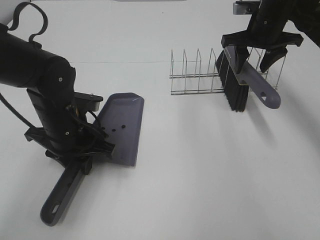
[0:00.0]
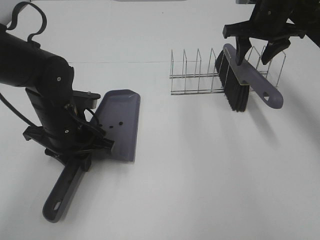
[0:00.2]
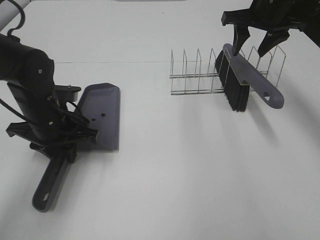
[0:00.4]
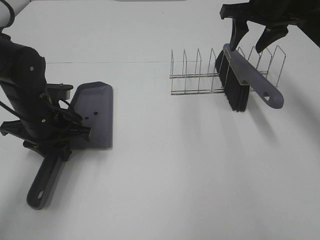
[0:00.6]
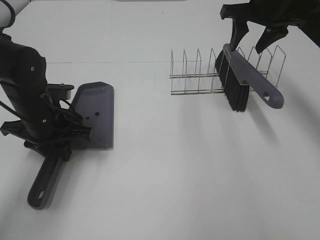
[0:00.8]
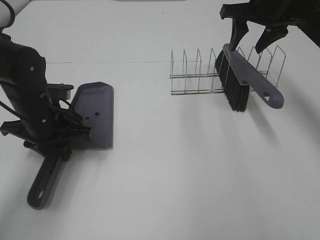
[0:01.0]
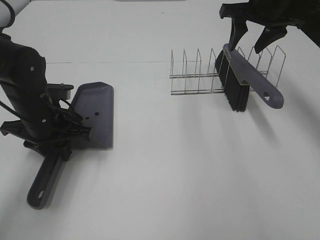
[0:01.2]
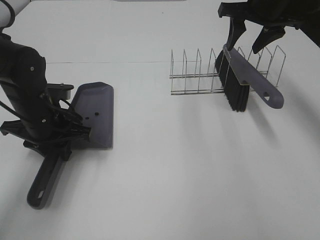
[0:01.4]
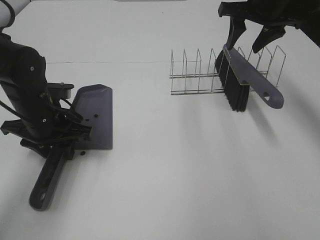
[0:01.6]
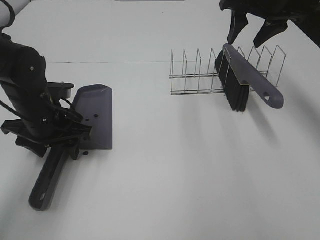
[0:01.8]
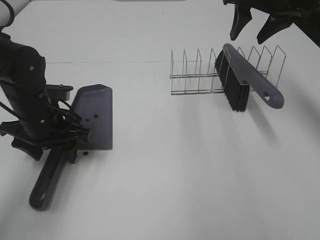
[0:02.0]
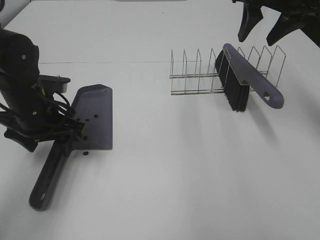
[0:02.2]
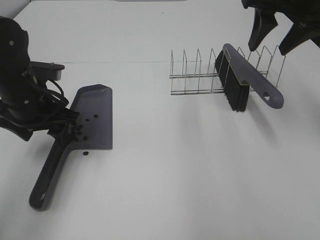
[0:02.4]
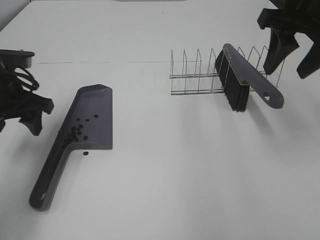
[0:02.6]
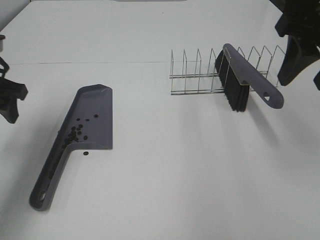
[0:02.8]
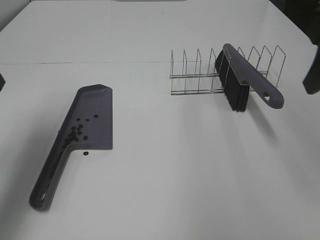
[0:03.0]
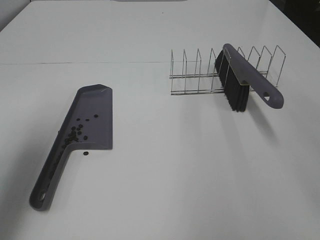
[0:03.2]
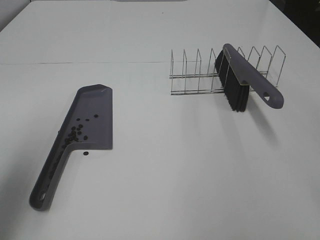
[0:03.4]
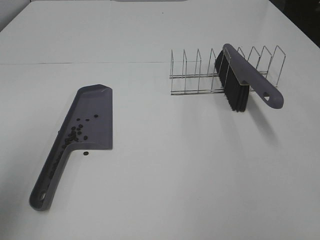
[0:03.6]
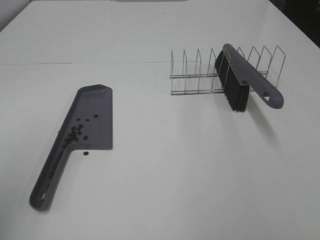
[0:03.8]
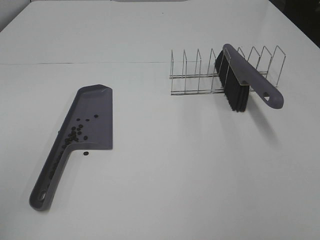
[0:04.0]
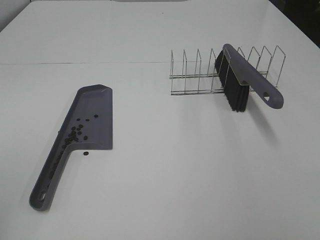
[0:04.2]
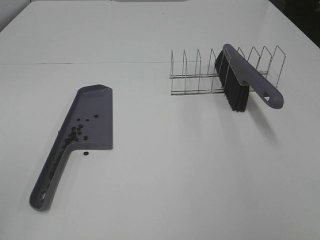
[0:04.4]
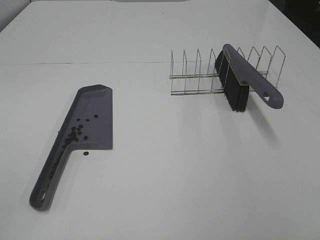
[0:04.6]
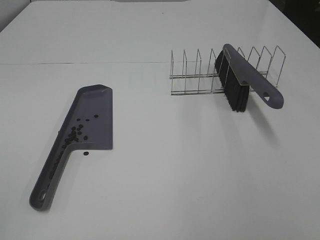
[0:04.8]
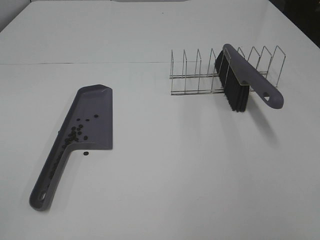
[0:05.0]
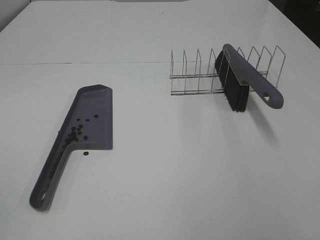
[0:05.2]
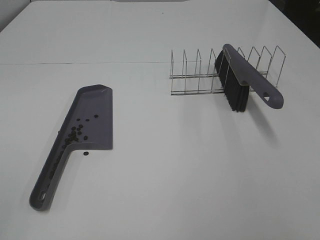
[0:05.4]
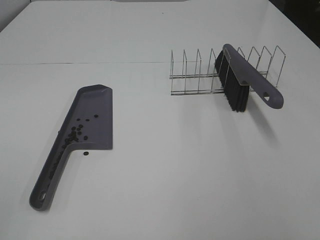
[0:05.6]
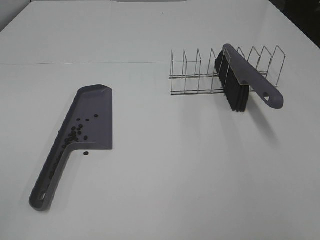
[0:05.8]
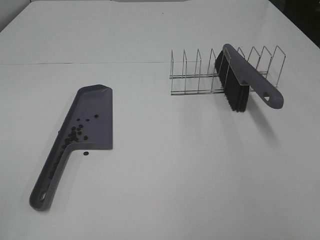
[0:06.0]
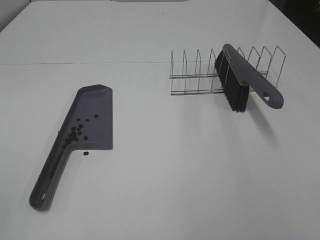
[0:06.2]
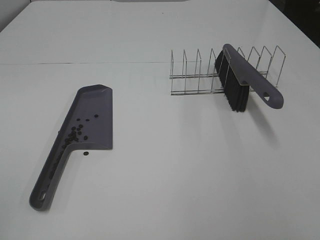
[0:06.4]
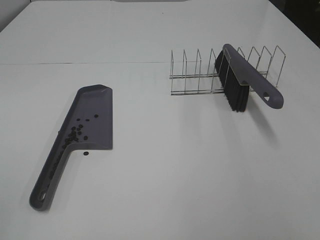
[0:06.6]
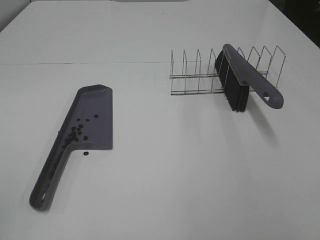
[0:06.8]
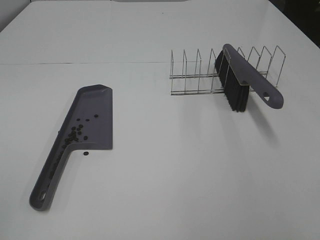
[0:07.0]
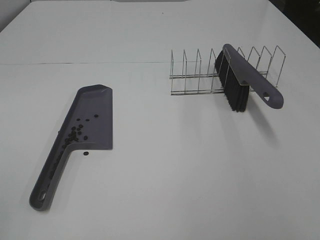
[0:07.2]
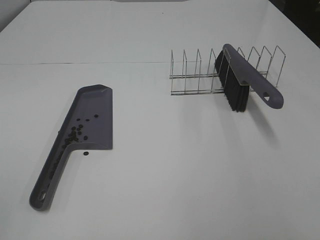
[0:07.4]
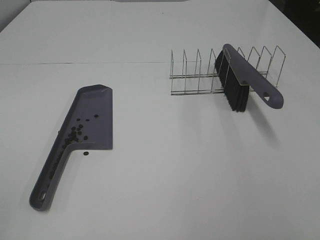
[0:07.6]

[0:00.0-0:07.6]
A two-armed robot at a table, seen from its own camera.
Task of the whole recording: Sweep Coffee Bean.
Step, 0:00.0 to 0:02.2: Left hand:place the dustpan on the table.
0:00.0 to 0:01.6: The left gripper moves about 5 cm, while the right gripper heads upward, covering roughly 5 cm.
0:01.6 to 0:03.0: The left gripper is displaced upward and to the left by approximately 15 cm. The right gripper moves backward, about 25 cm.
0:03.0 to 0:04.6: The grippers both shift backward by roughly 30 cm.
0:06.0 to 0:07.6: The two grippers keep their place.

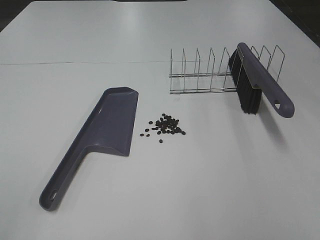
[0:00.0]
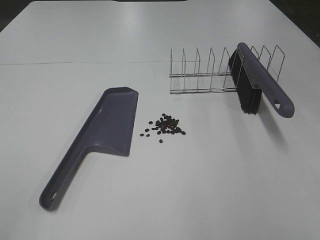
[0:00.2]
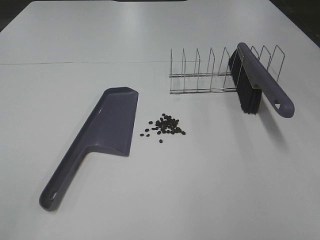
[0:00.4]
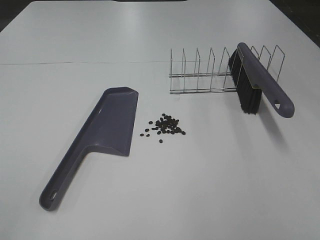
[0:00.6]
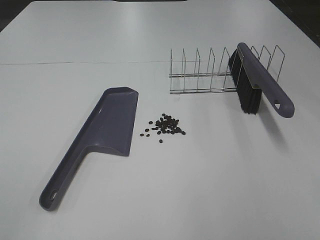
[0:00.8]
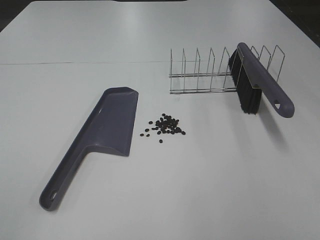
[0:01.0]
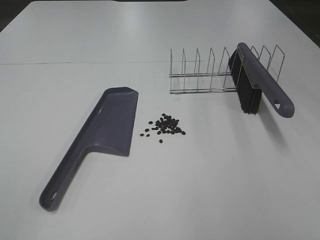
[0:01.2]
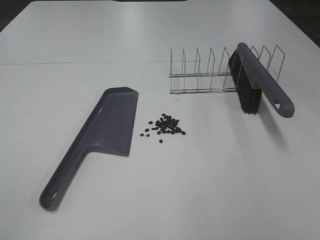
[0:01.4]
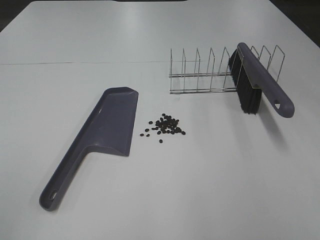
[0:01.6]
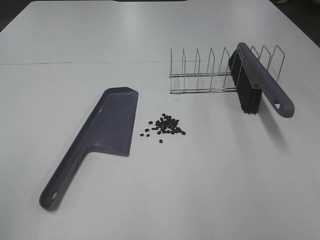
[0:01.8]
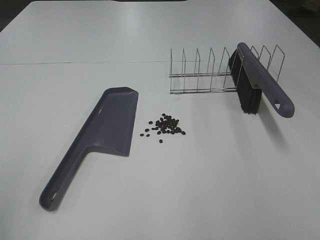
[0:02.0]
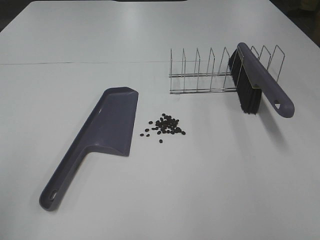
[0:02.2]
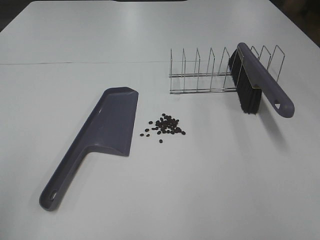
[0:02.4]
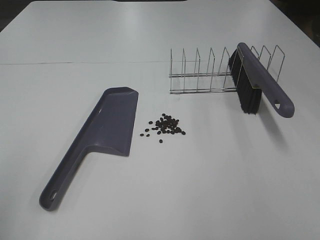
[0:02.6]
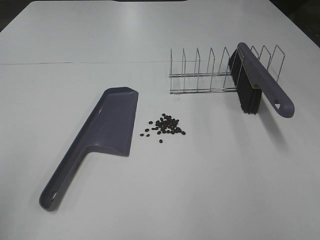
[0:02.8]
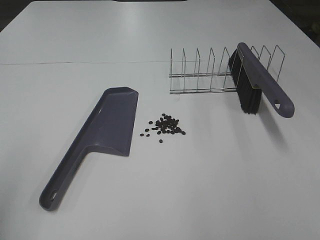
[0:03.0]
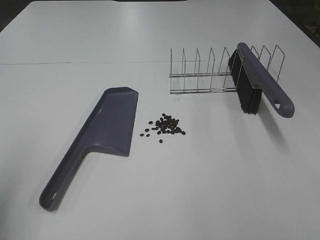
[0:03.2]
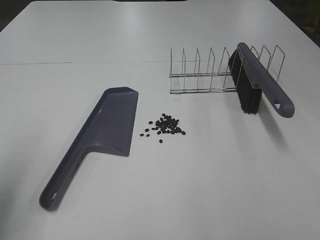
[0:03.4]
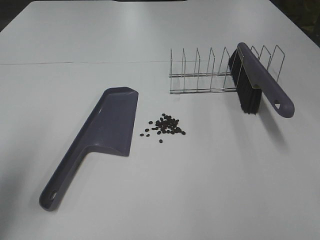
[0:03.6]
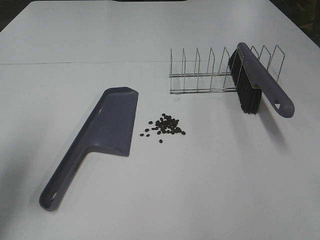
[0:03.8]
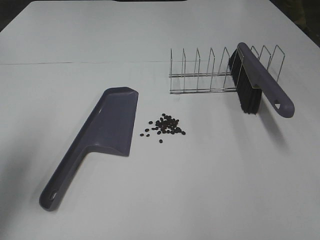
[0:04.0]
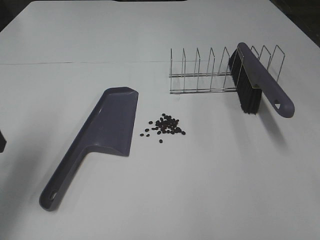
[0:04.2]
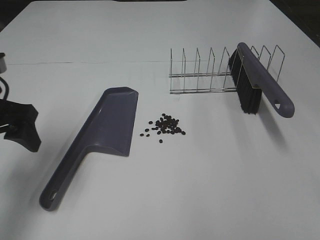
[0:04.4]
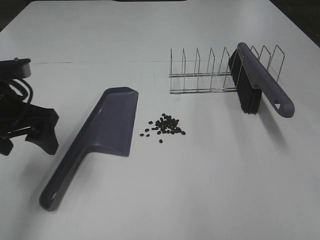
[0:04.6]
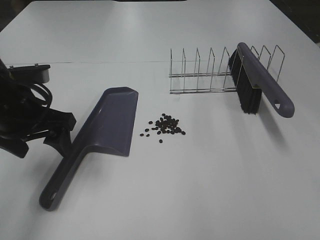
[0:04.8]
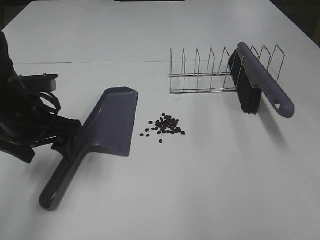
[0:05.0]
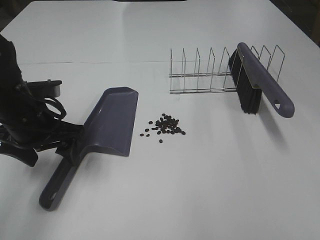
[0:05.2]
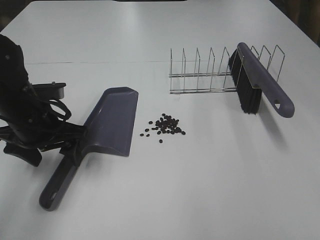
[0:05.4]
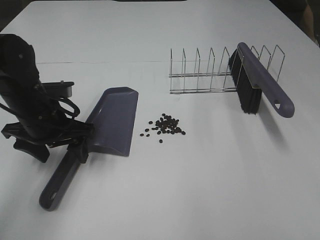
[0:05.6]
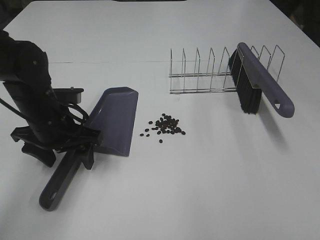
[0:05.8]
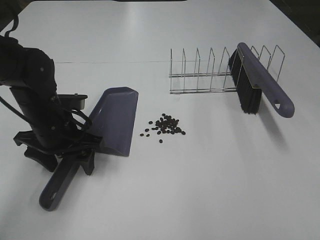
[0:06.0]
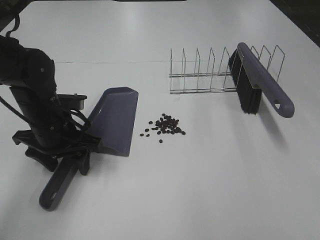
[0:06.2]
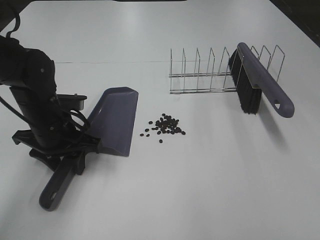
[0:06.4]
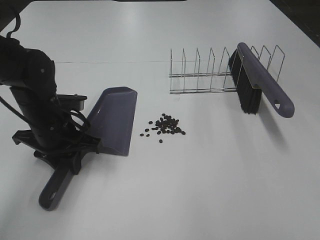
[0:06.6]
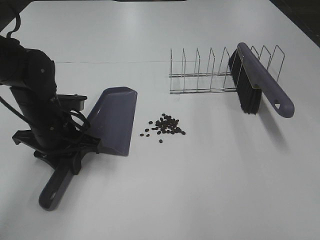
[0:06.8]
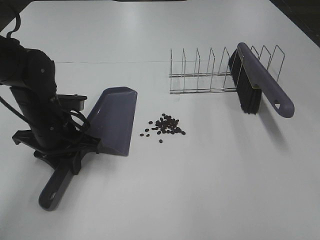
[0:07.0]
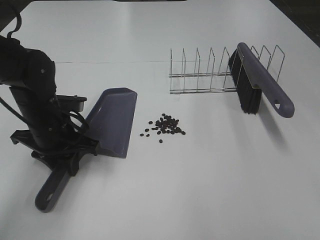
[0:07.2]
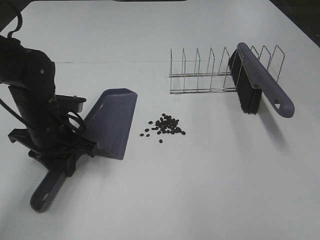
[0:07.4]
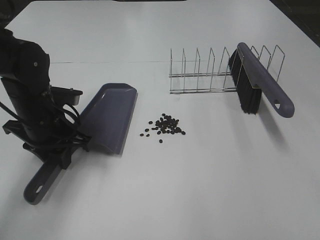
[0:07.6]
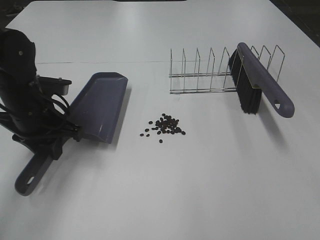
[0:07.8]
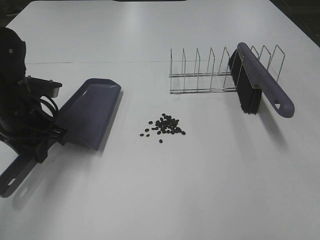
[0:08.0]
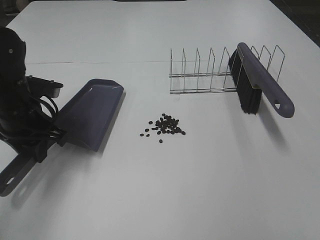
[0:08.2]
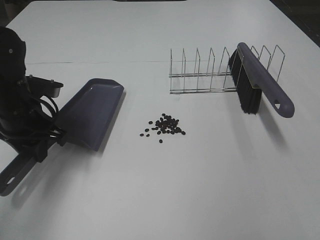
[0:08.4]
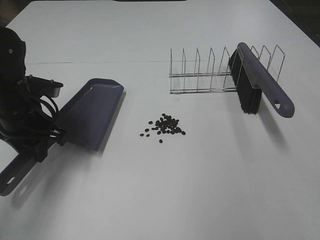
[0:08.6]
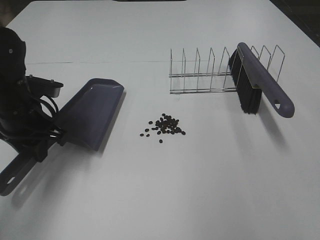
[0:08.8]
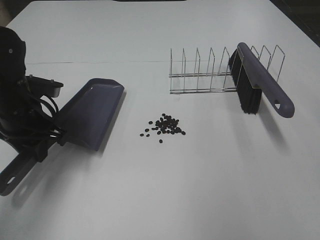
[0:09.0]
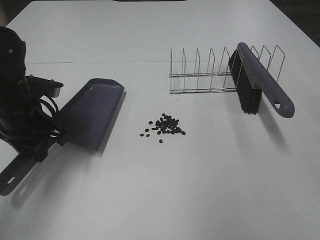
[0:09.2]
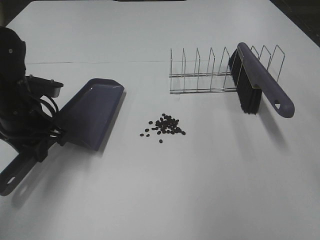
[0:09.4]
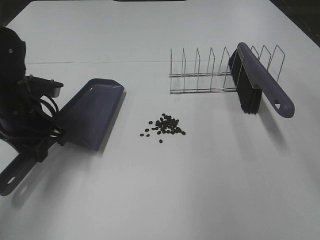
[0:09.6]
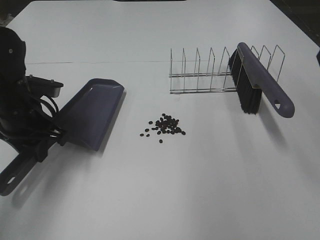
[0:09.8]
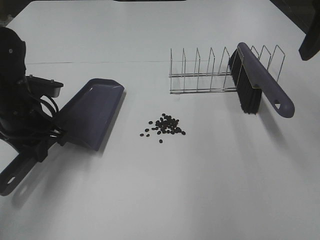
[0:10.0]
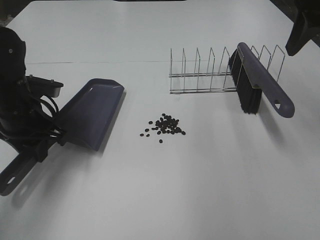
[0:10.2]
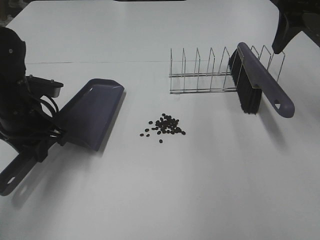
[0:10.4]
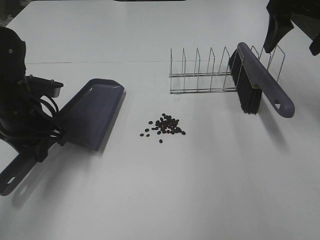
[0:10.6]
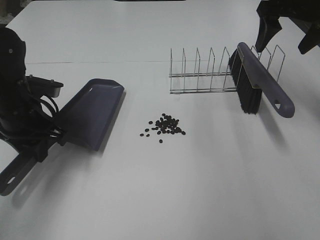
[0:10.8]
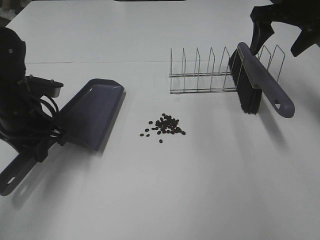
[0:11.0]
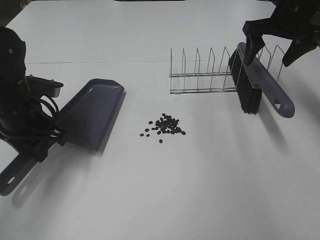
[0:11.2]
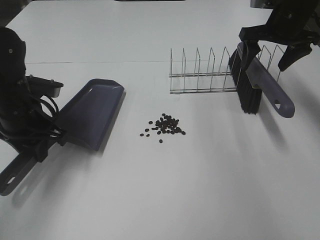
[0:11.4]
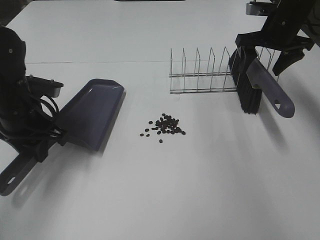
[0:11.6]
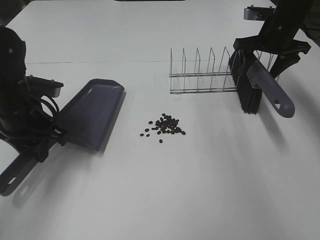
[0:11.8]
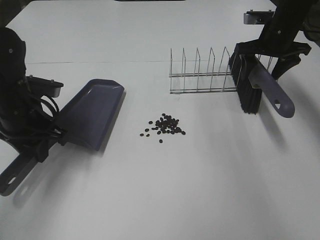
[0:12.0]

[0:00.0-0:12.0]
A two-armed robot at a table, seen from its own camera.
Task of the whole recording: Sweep Coffee Bean.
Step, 0:00.0 to 0:06.6: Left hand: grab the dustpan.
0:03.0 to 0:04.4: The left gripper travels forward and to the right by about 15 cm.
0:04.4 to 0:06.0: The left gripper travels downward, to the right and forward by about 15 cm.
0:06.0 to 0:07.6: The left gripper closes its fingers.
0:07.6 to 0:09.0: The right gripper is displaced forward and upward by about 15 cm.
0:09.0 to 0:10.4: The right gripper is displaced forward by approximately 25 cm.
0:10.4 to 0:12.0: The right gripper shifts roughly 20 cm downward and forward.

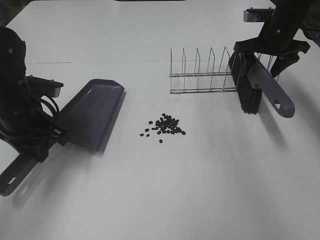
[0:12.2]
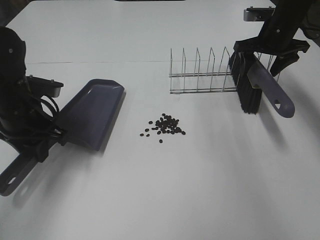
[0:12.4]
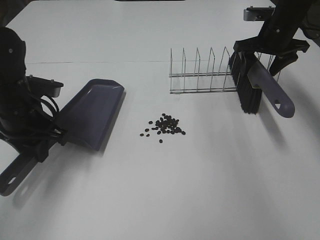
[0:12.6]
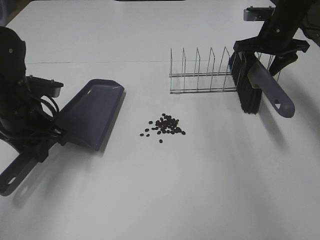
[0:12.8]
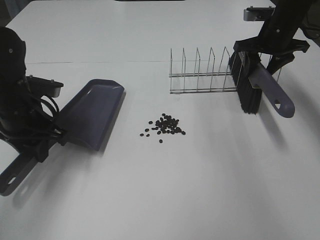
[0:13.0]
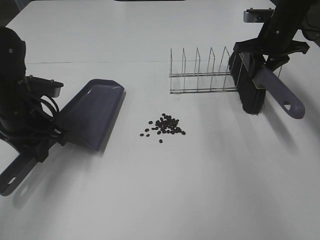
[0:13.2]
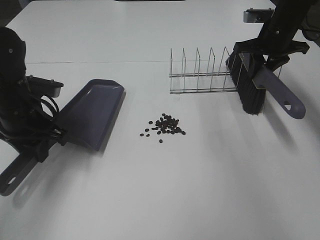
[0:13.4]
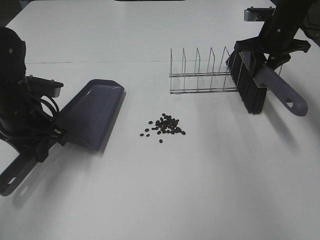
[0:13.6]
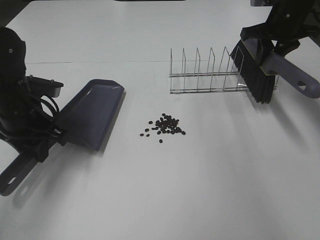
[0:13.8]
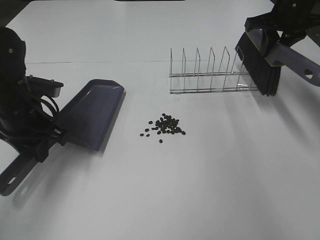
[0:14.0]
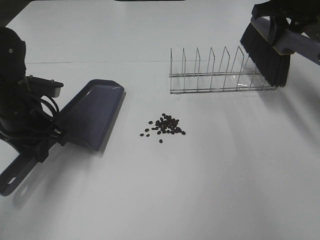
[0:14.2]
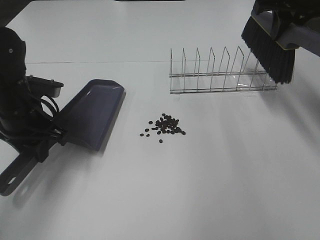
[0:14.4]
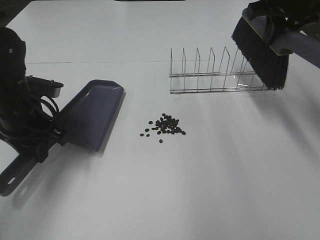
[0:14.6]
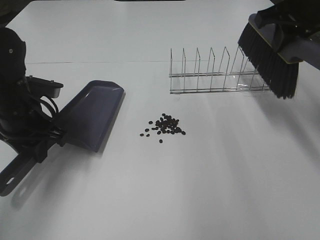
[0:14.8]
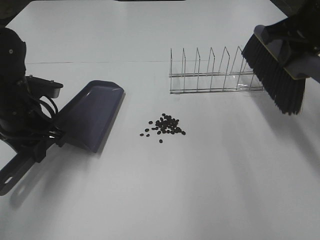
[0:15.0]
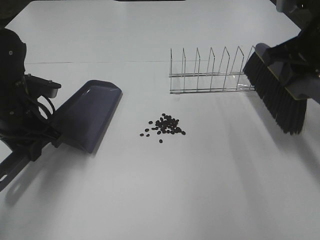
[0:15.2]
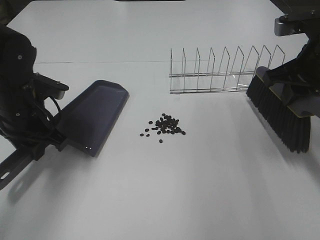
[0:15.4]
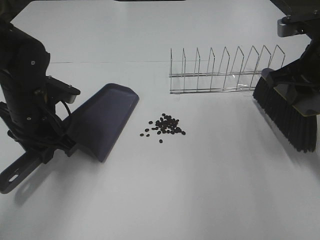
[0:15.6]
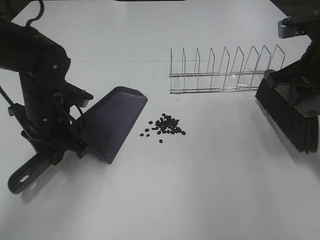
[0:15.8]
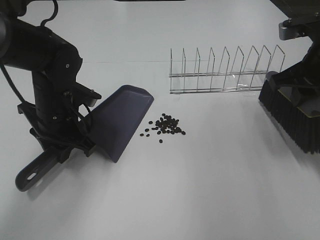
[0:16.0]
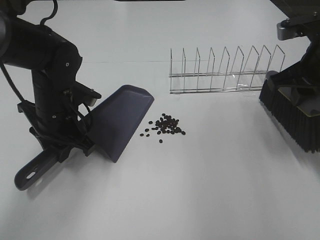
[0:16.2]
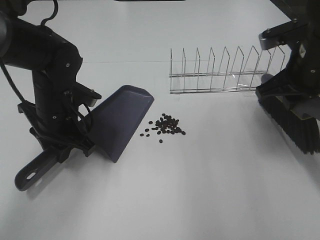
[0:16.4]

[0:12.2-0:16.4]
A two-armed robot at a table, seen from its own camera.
Task of the whole recording: Sweep Coffee Bean.
Step, 0:12.2 to 0:16.0: Left hand: move the dustpan to the left side of the coffee beans.
0:12.2 to 0:13.6: The right gripper closes.
0:13.6 to 0:15.0: The right gripper travels backward and upward by approximately 15 cm.
0:15.0 to 0:16.4: The right gripper heads downward, covering approximately 5 cm; the left gripper is displaced to the right by approximately 5 cm.
